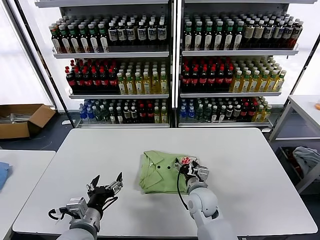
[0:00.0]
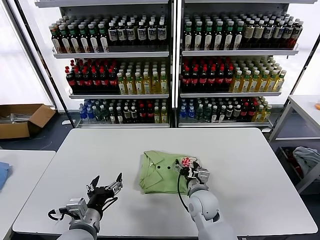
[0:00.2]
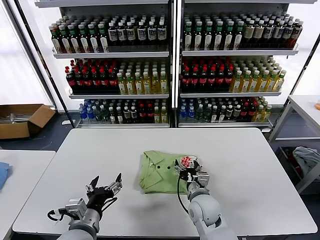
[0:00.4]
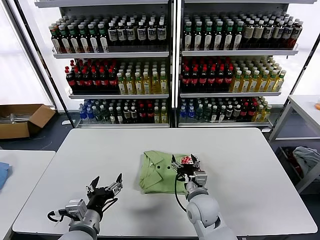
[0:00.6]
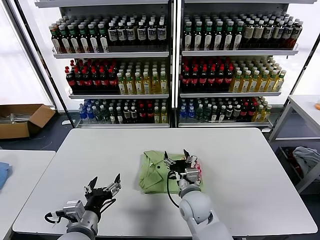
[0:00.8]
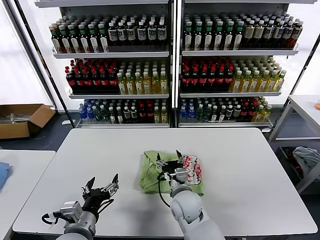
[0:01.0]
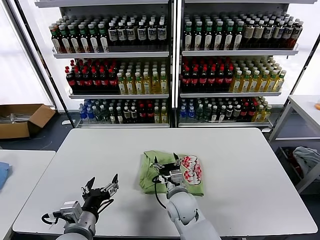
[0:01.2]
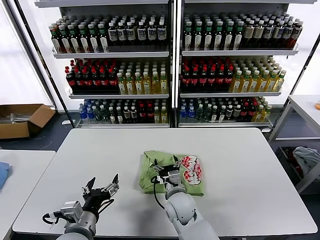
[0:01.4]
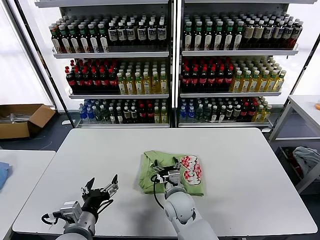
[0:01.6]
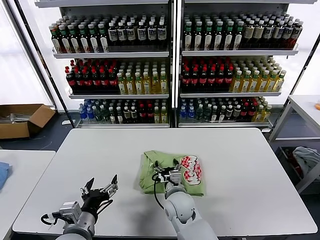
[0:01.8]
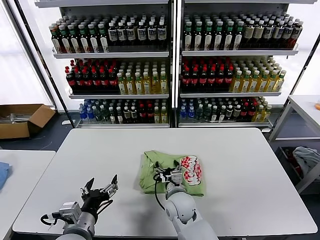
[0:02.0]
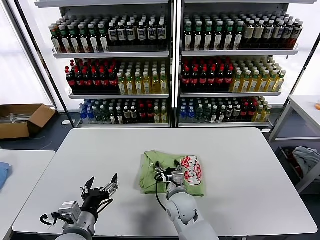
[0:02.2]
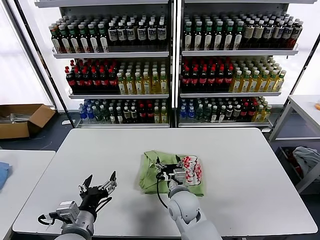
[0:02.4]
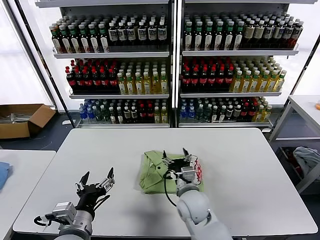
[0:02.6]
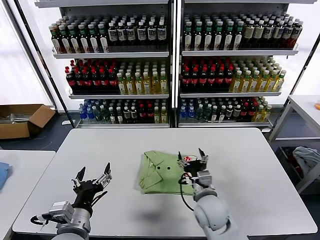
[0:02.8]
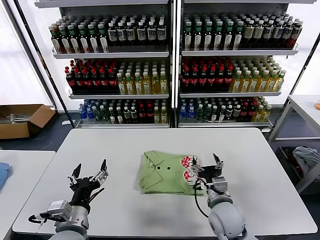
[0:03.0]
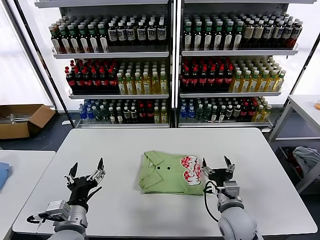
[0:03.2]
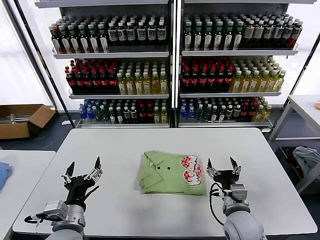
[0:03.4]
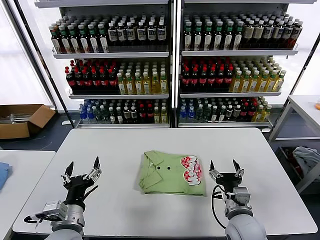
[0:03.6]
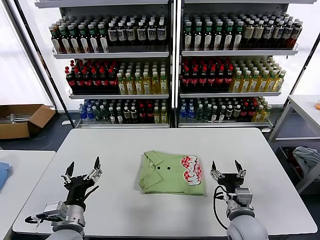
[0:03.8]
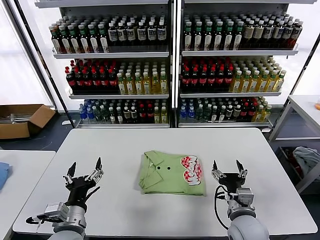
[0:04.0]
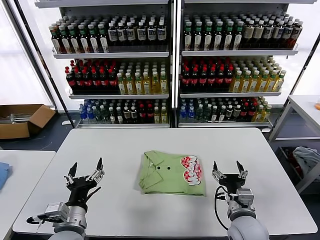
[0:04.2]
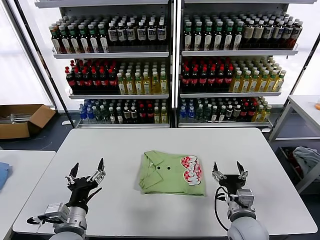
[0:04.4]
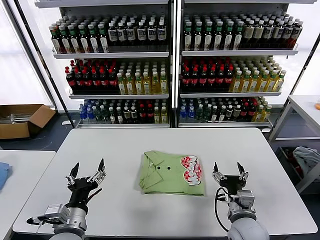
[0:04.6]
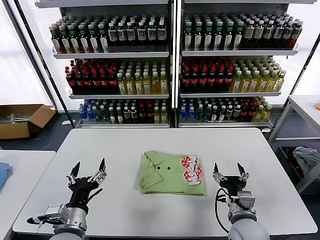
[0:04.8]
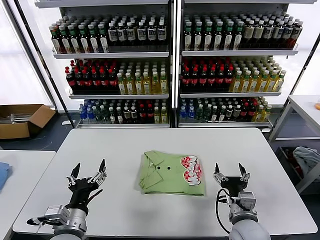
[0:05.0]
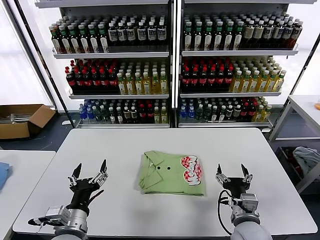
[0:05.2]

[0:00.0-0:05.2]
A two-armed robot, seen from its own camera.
Task of the whole recording: fold and organize the clothes.
Step, 0:00.0 to 0:02.4: Drag the clothes to the center of the table.
0:00.0 to 0:01.8: The right gripper moves to the left, about 10 cm.
0:01.8 to 0:03.4: The right gripper travels to the right and backward by approximately 20 cm.
0:03.4 to 0:05.2: The grippers stay close to where they were, moving slightly.
